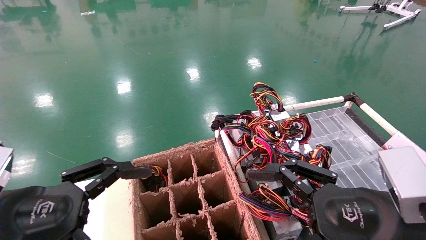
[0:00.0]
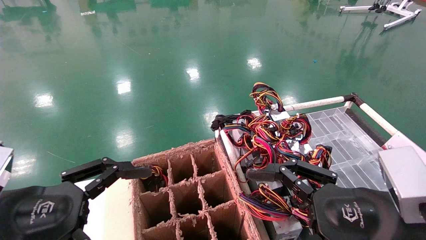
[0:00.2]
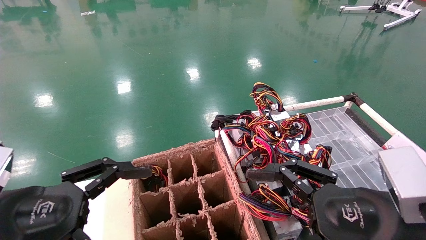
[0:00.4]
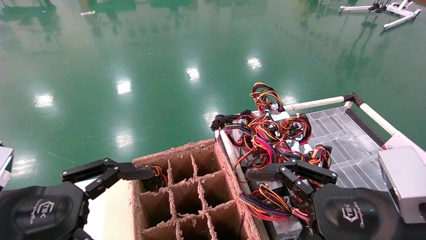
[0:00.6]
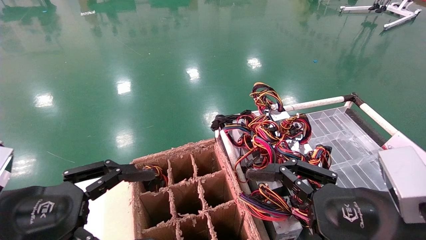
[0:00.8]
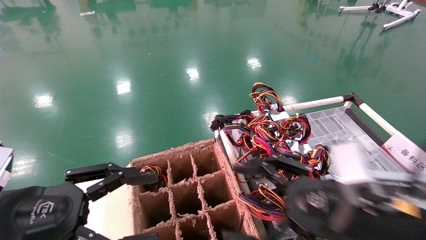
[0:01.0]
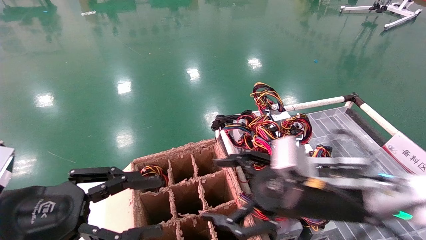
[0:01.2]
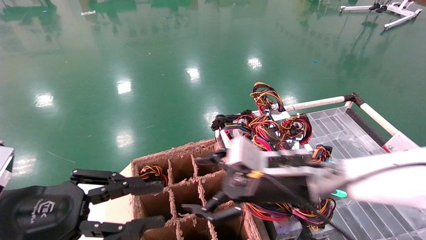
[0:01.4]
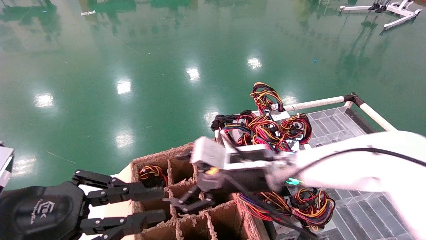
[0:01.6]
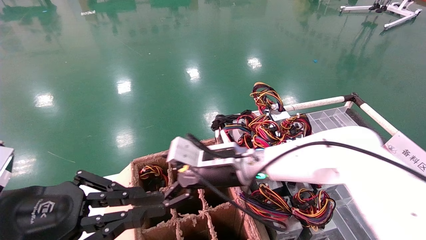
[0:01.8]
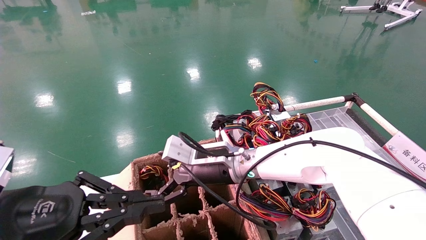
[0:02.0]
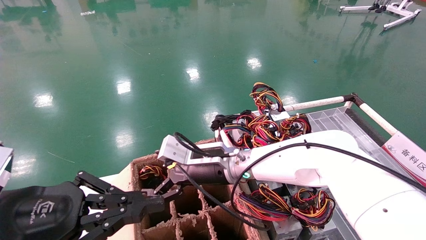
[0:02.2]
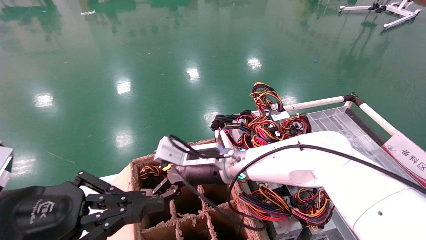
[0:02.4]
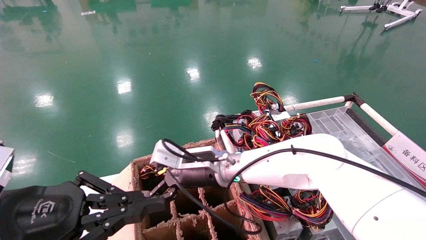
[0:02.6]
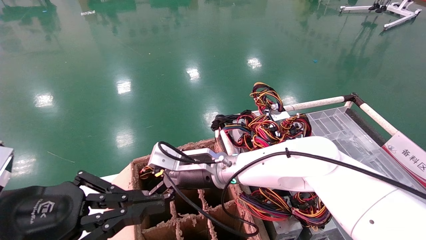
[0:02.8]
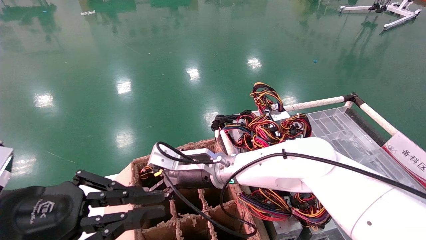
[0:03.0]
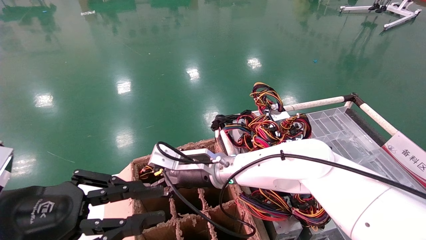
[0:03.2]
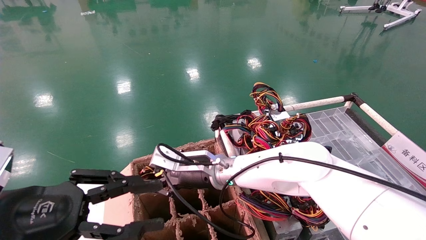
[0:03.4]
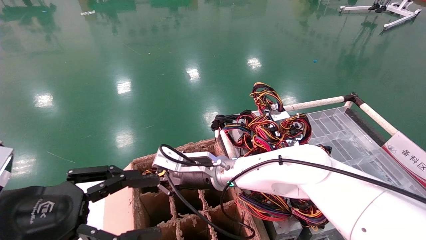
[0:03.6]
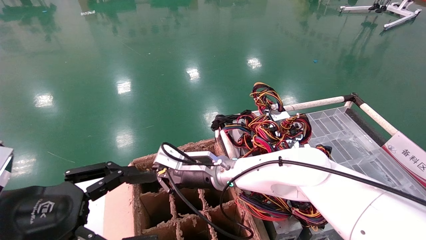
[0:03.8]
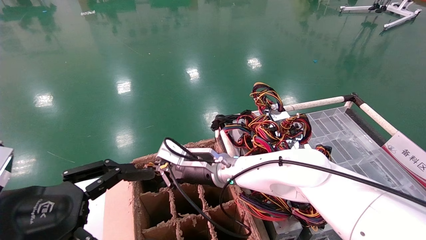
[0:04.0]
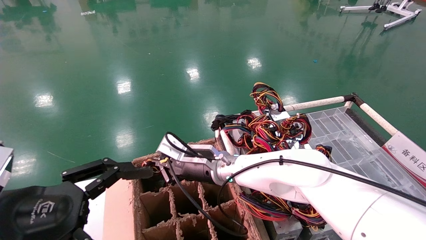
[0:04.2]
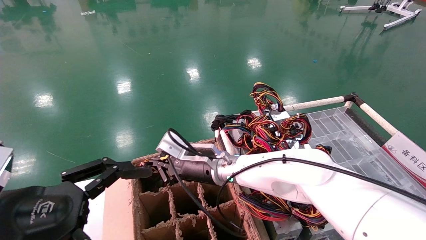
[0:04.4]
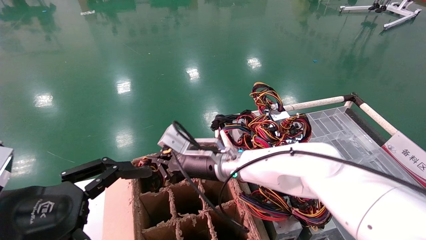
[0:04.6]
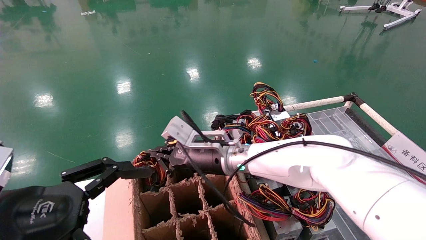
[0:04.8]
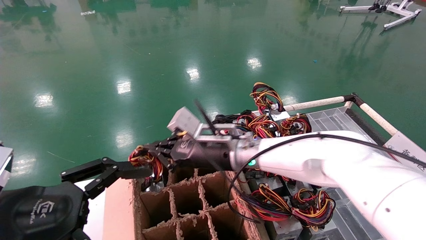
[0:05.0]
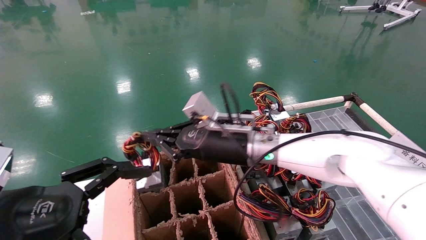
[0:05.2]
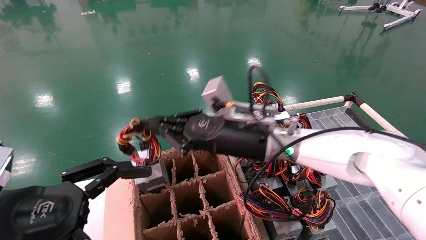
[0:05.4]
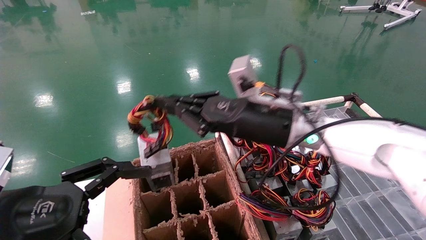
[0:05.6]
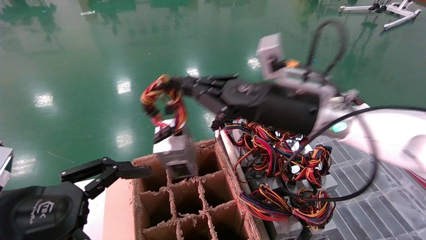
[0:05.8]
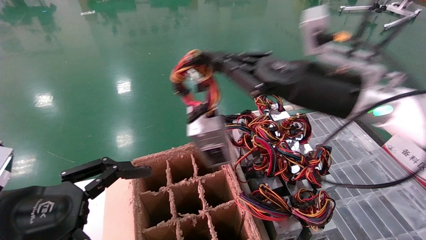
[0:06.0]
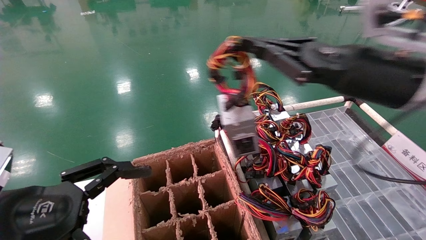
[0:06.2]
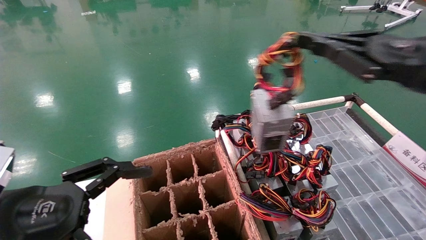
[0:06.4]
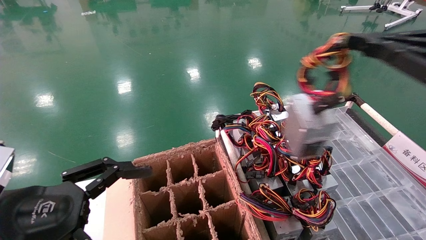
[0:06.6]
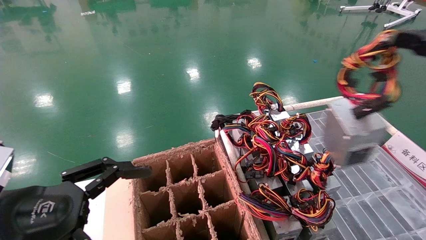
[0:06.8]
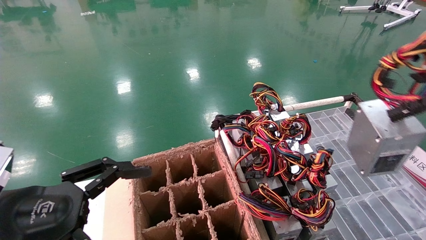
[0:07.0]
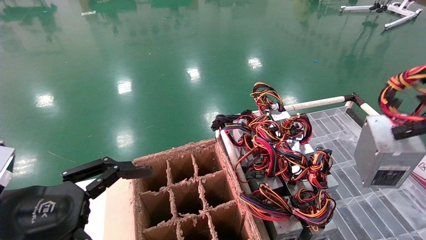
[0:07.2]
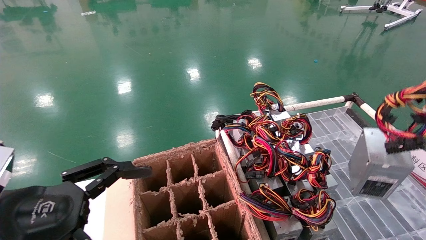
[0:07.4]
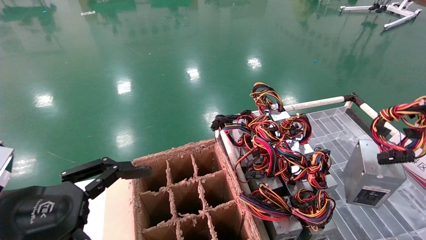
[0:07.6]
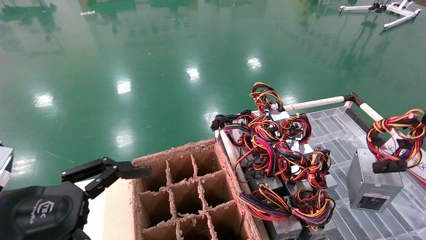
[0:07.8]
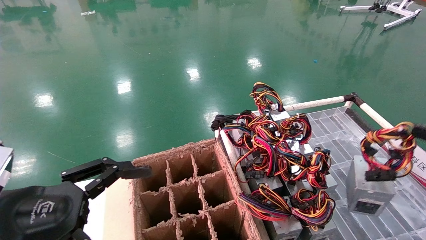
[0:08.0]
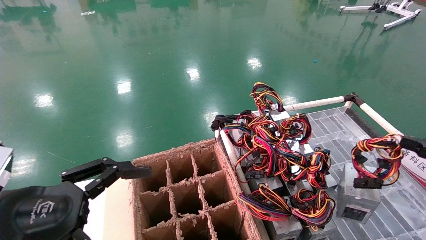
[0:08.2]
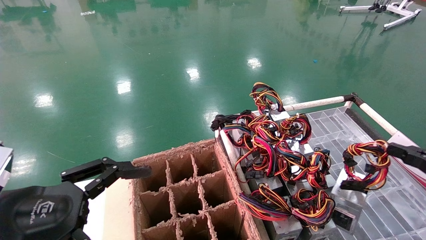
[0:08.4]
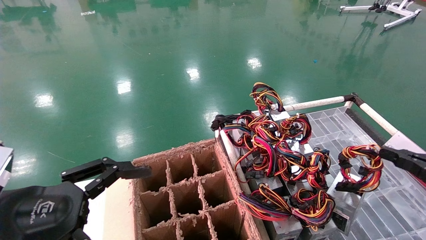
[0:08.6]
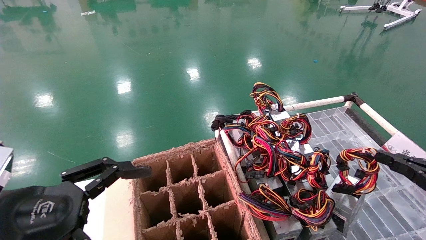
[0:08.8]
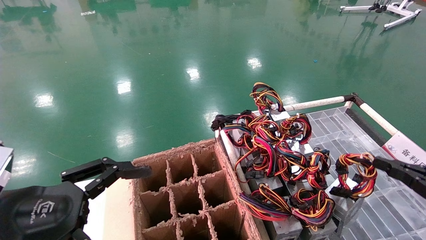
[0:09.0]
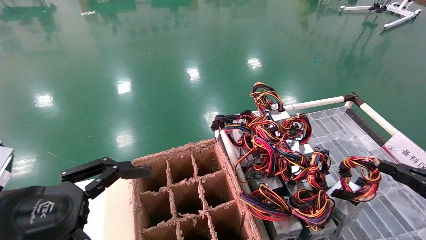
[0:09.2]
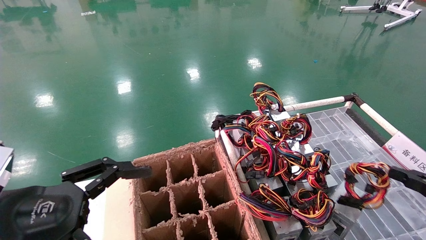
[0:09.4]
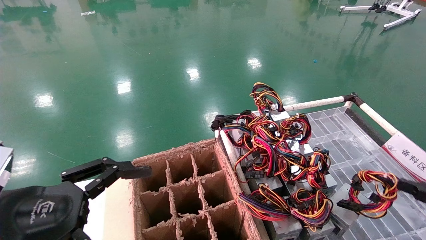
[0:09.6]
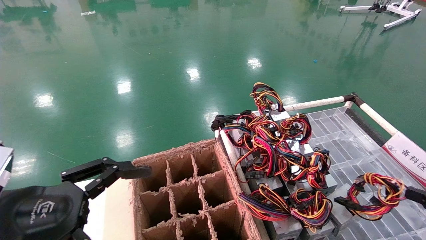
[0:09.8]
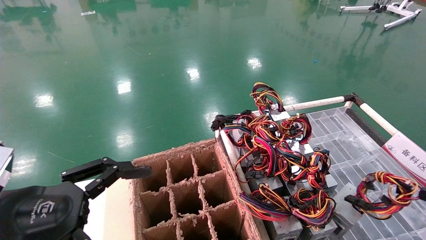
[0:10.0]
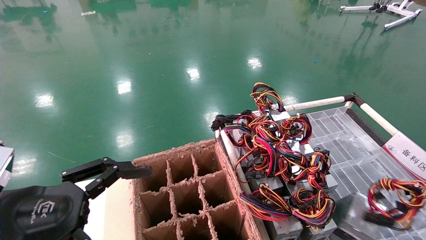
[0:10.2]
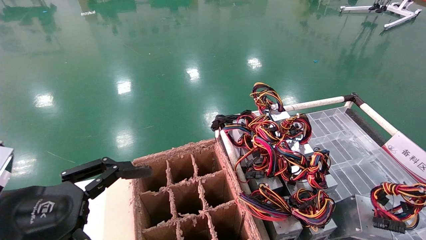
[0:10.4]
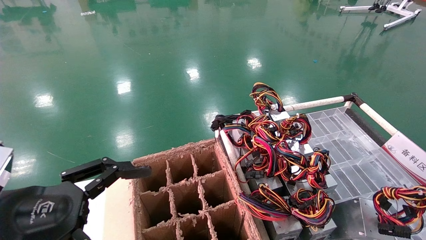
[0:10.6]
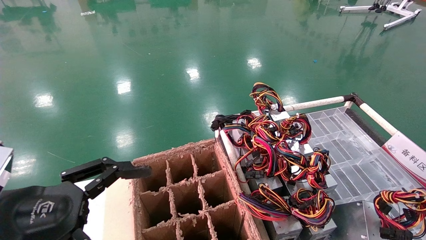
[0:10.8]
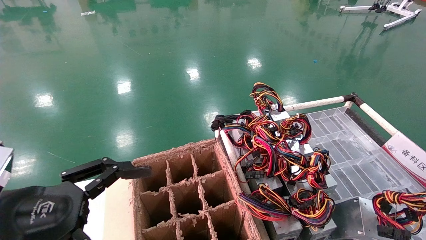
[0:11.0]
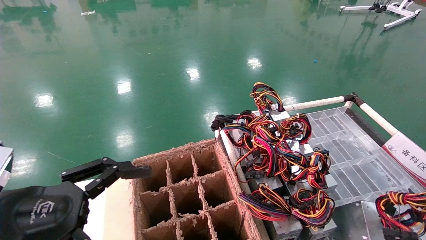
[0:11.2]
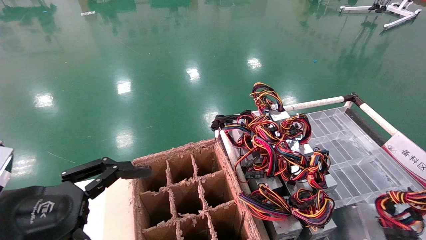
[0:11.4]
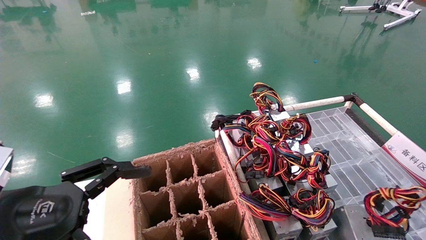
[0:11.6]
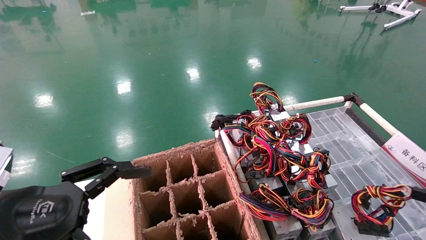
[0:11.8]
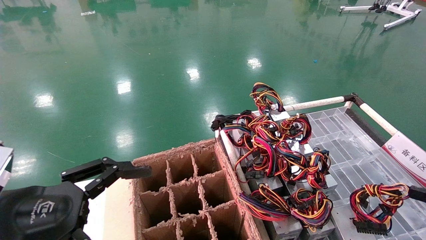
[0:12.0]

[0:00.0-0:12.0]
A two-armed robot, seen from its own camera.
Step, 0:01.2 to 0:04.4: Grab and lift the power supply from the large box.
0:00.0 to 0:01.6: The right gripper goes about 25 cm forward and to the left, while the left gripper closes up.
0:01.6 to 0:03.0: The right gripper moves to the left, approximately 10 cm.
0:03.0 to 0:04.4: The left gripper opens. Meanwhile the right gripper closes its fingers.
0:04.4 to 0:06.0: The right gripper goes some 30 cm to the right, upward and backward.
0:06.0 to 0:07.6: The right gripper travels to the right and backward by approximately 35 cm.
0:07.6 to 0:09.0: The right gripper shifts roughly 10 cm downward and forward.
0:09.0 to 0:10.4: The right gripper travels backward by roughly 5 cm.
0:10.4 to 0:12.0: The grippers make only small movements.

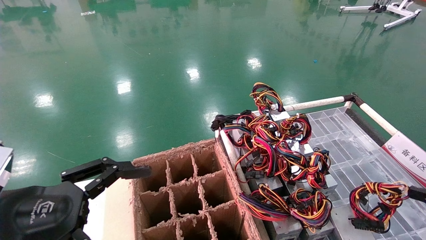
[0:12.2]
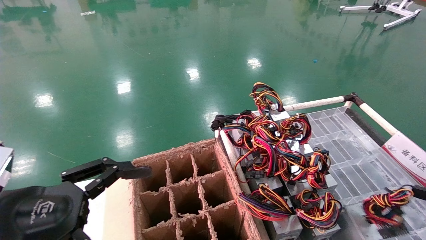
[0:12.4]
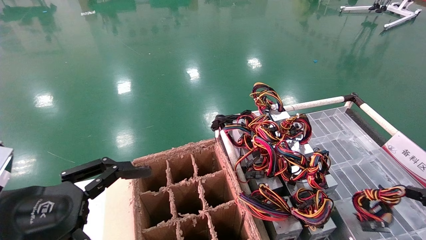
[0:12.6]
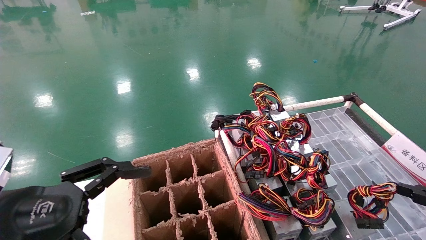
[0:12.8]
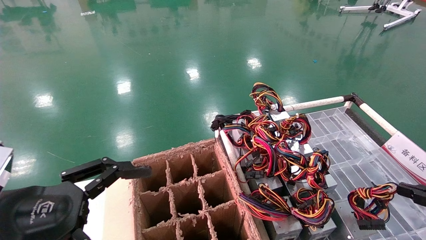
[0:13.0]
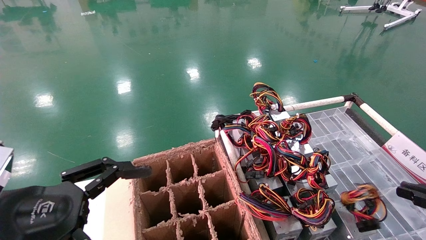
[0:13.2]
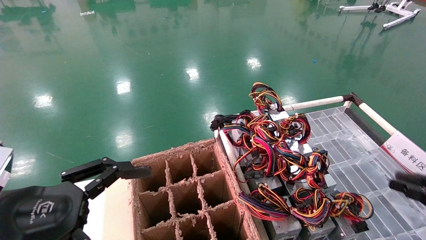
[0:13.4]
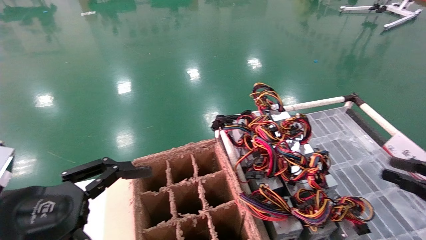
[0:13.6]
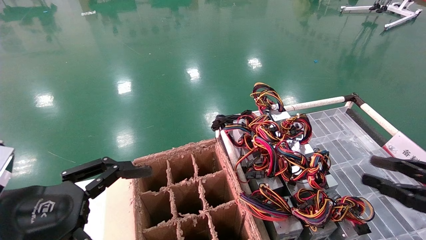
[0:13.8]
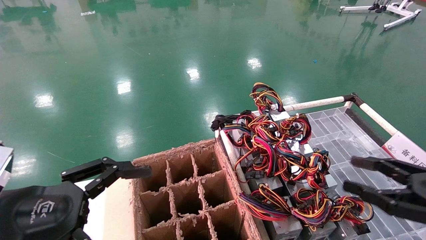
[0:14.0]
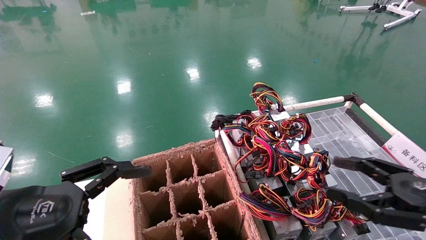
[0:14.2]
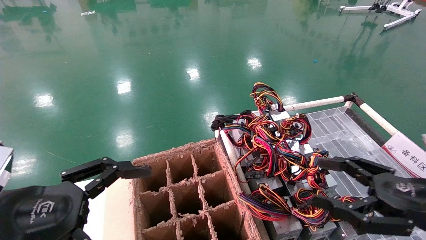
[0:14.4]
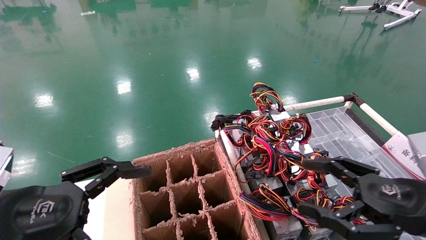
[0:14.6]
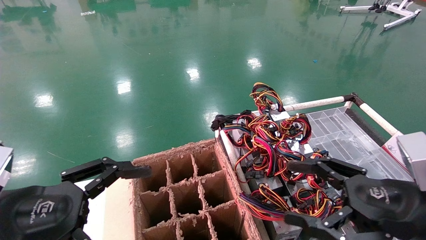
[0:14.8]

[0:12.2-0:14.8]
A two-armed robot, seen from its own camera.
0:12.2 to 0:13.4: There are only small adjustments of the grippers.
0:13.4 to 0:14.8: The right gripper heads to the left, covering roughly 20 cm, and opens up.
